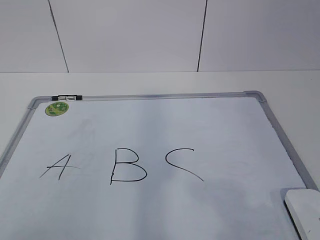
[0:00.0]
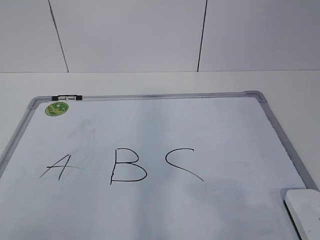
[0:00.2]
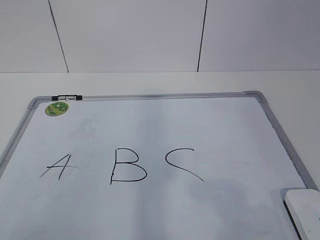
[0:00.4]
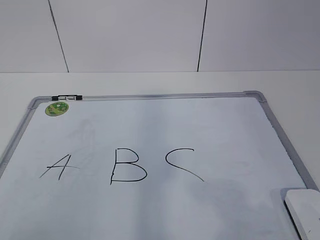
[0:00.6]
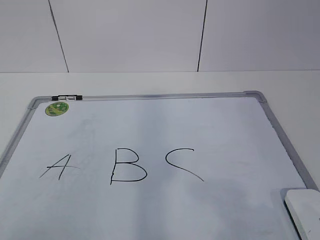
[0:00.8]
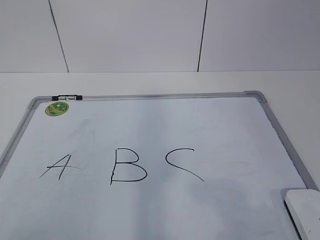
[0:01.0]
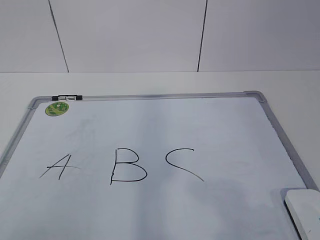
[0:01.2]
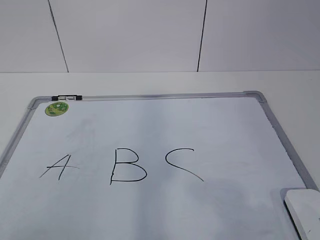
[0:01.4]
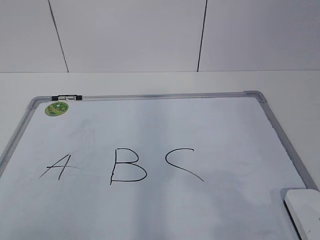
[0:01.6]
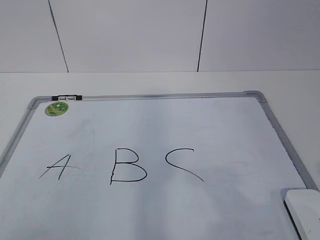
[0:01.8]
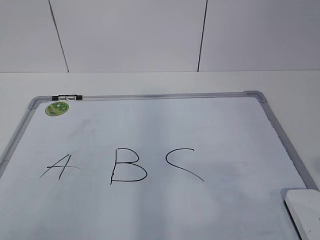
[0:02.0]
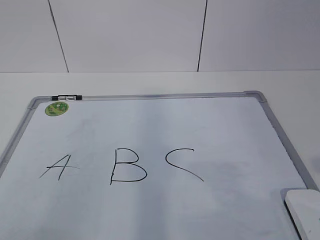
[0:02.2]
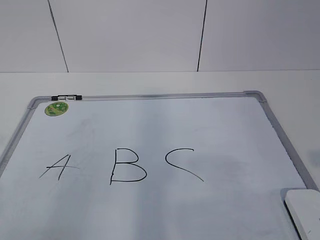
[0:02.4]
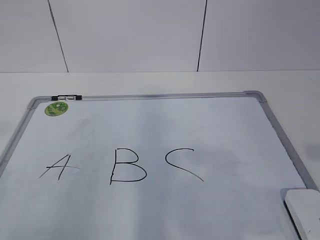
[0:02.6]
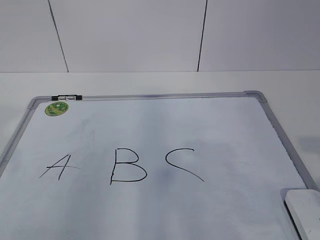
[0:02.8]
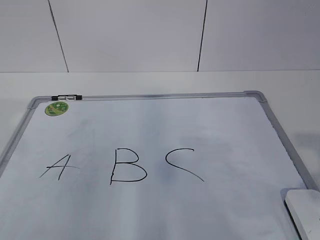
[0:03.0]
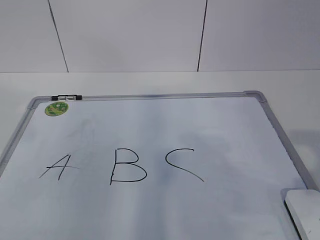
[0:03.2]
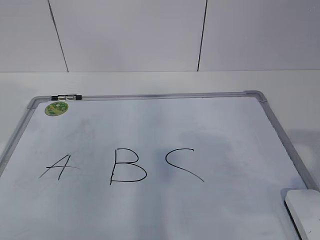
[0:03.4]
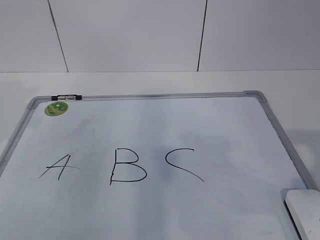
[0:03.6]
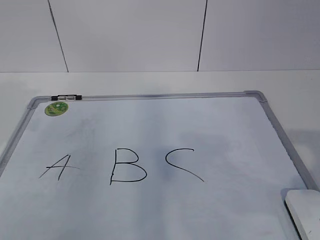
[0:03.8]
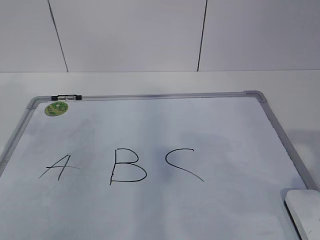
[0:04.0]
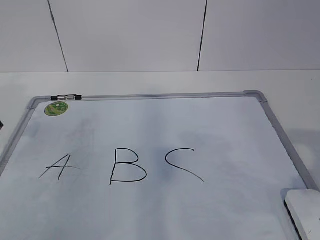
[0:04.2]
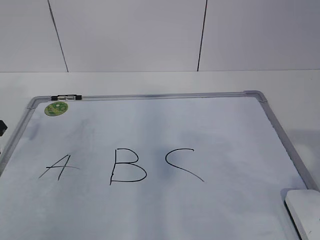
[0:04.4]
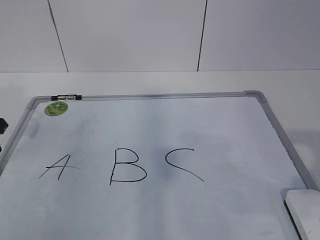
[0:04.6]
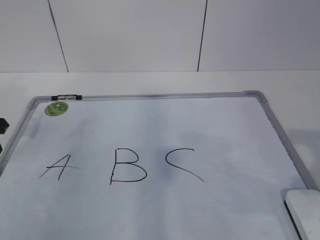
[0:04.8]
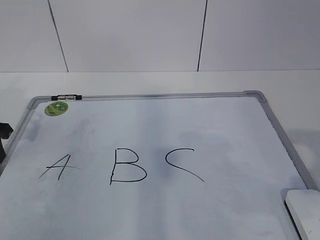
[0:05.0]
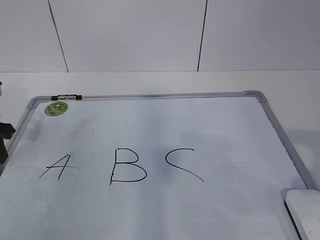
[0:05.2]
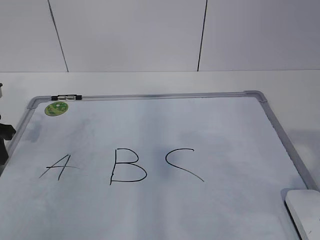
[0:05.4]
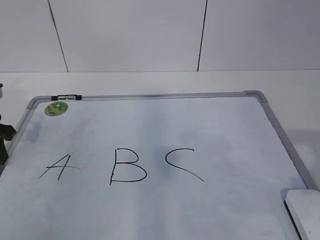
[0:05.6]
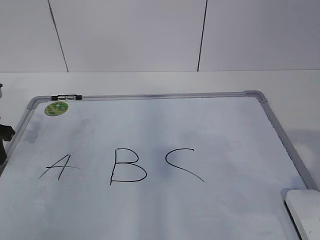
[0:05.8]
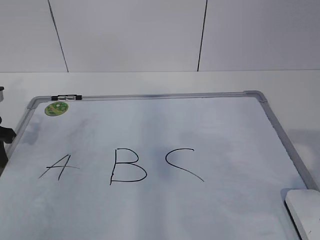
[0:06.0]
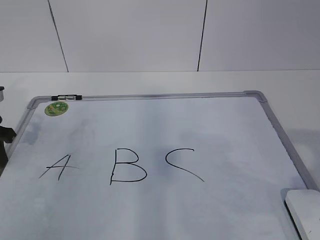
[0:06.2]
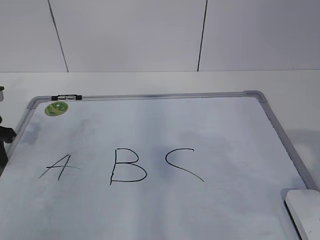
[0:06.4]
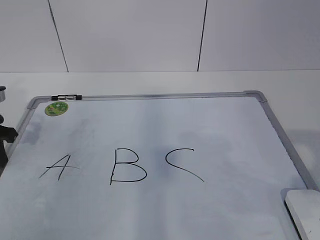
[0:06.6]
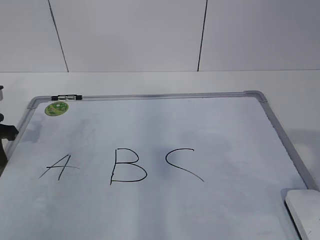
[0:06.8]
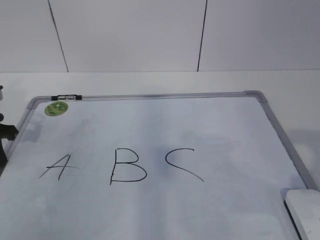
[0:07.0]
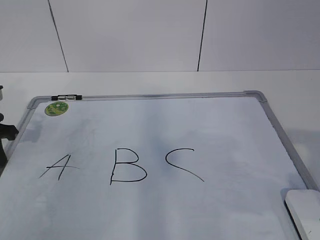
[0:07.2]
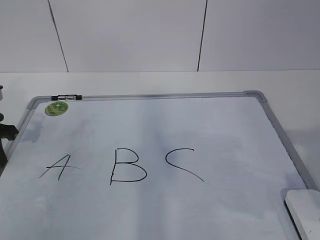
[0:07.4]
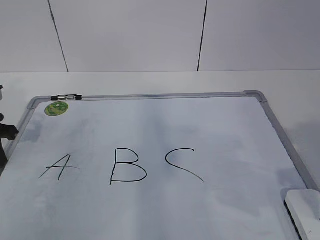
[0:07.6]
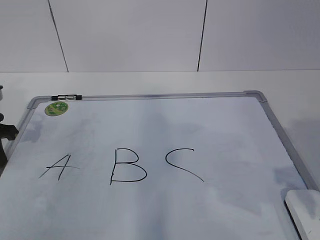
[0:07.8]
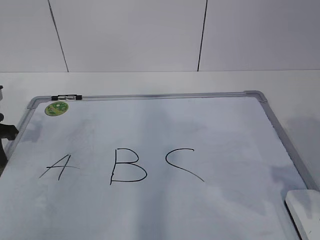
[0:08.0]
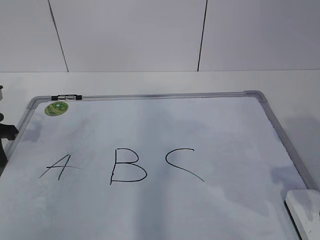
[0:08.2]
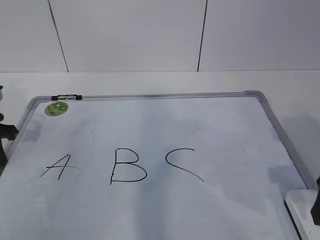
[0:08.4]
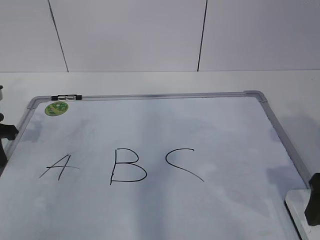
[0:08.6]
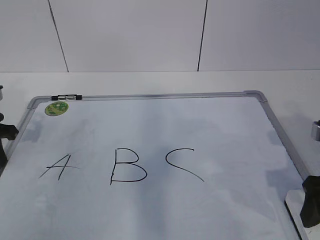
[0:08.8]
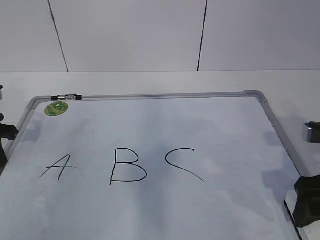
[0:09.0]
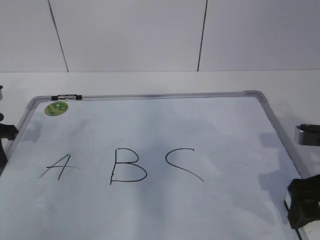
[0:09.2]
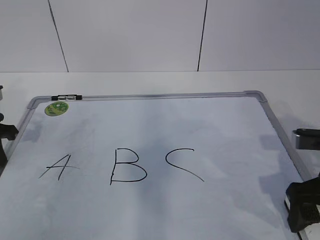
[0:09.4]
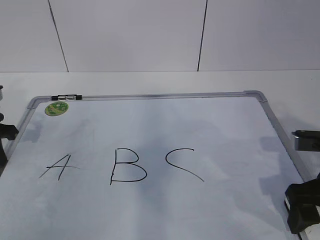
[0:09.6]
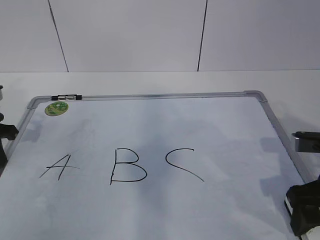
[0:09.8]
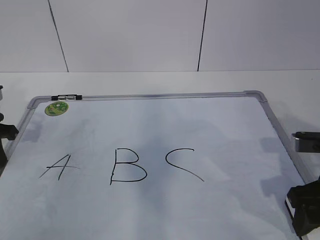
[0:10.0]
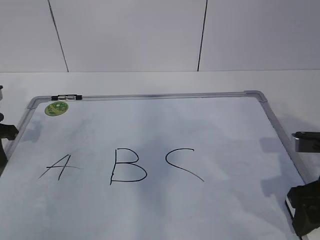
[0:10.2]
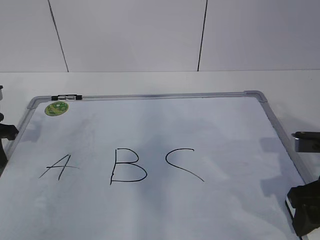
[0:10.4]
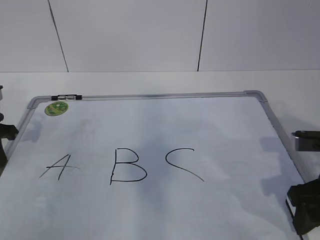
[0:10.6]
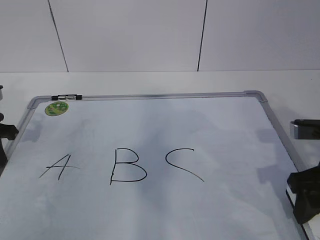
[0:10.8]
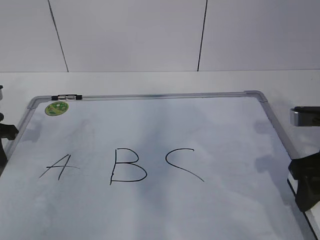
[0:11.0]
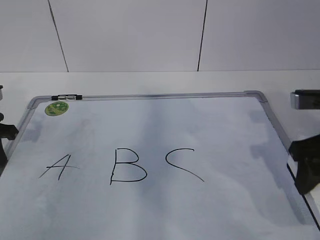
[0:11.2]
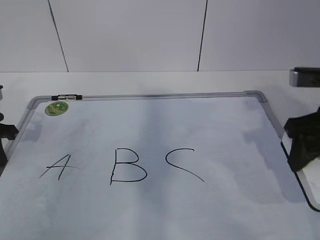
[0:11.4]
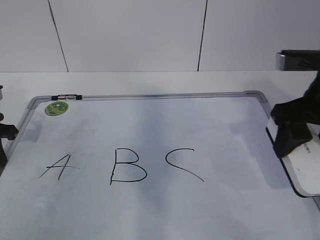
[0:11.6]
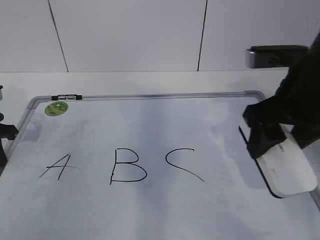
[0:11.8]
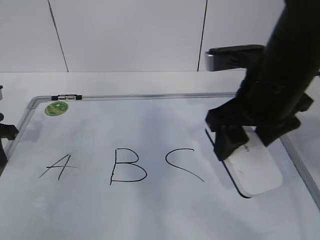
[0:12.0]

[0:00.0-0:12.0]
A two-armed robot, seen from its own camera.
Task of the whole recording: pick up the eraser on the blackboard and erase the letter "B".
0:03.0 to 0:04.4: The left gripper is displaced forward and downward by roughly 20 cm.
0:07.6 to 0:09.0: The right gripper heads downward and forward, covering about 10 cm, and opens.
0:09.0 to 0:10.4: The right gripper closes up.
0:10.4 to 0:12.0: The right gripper travels to the left, upward and forward by about 15 cm.

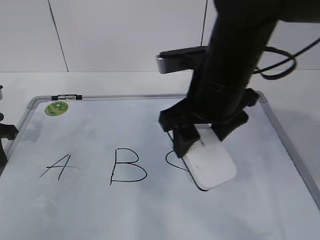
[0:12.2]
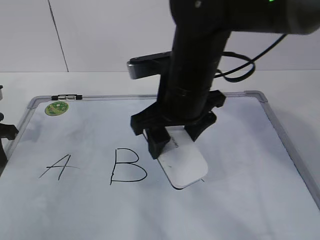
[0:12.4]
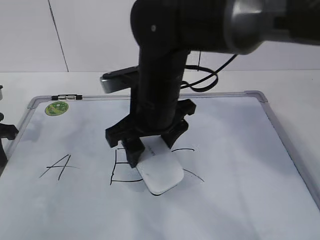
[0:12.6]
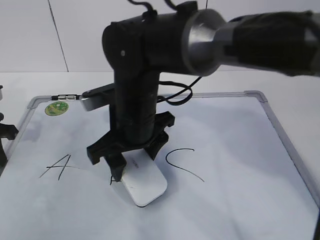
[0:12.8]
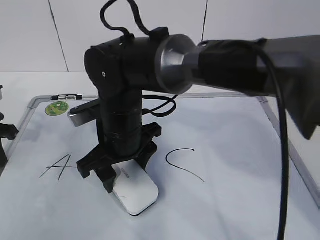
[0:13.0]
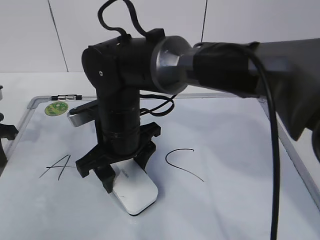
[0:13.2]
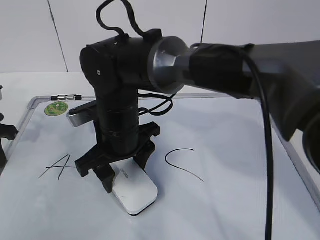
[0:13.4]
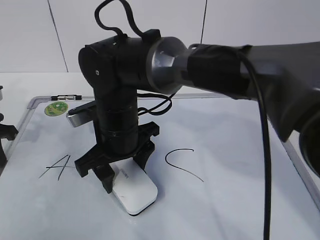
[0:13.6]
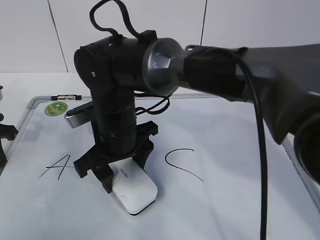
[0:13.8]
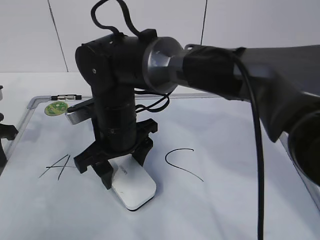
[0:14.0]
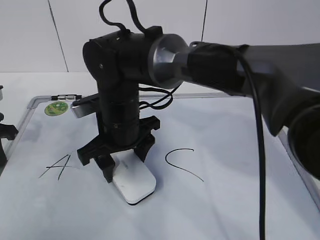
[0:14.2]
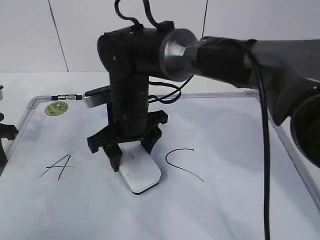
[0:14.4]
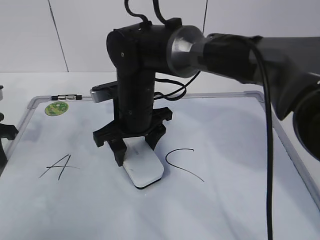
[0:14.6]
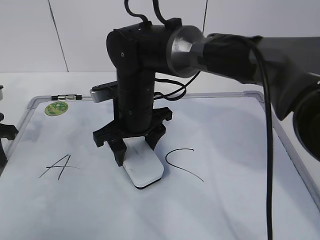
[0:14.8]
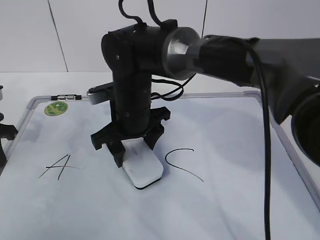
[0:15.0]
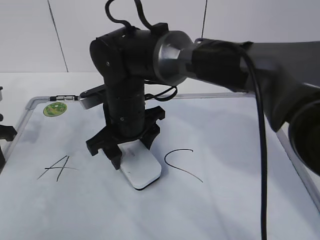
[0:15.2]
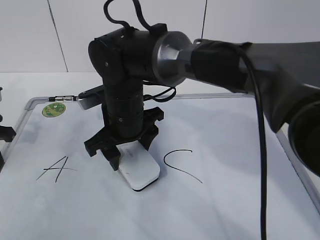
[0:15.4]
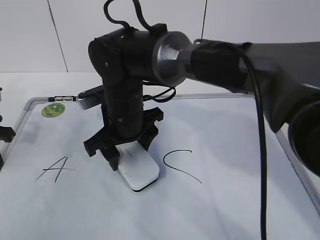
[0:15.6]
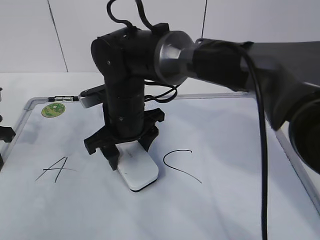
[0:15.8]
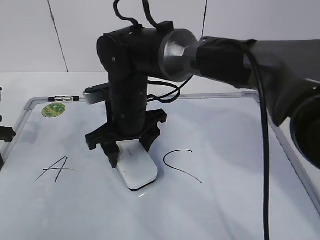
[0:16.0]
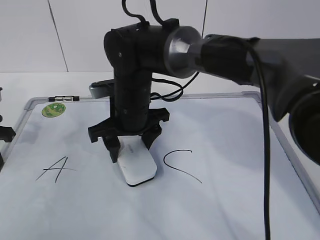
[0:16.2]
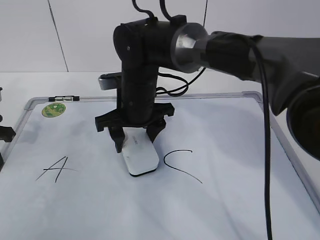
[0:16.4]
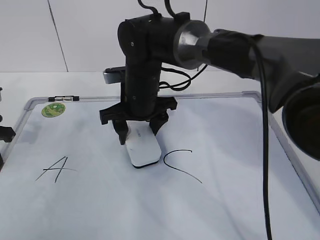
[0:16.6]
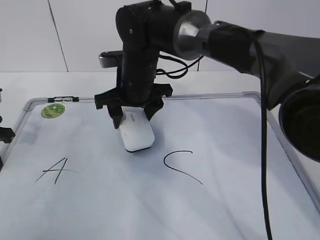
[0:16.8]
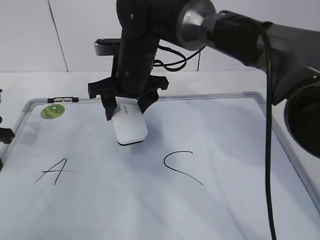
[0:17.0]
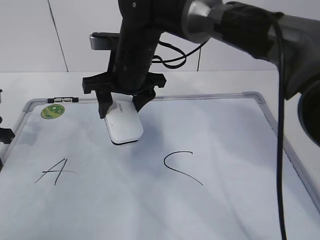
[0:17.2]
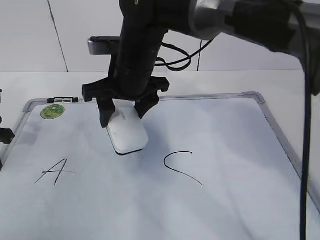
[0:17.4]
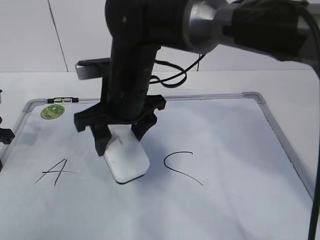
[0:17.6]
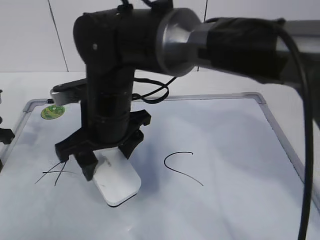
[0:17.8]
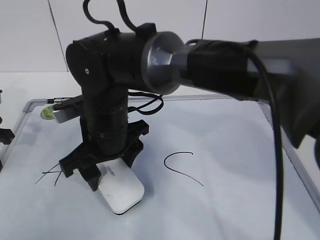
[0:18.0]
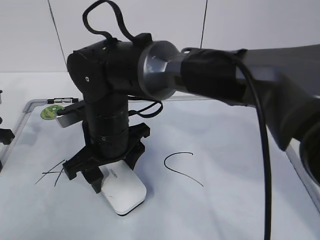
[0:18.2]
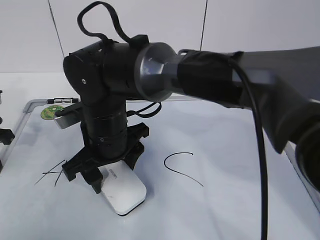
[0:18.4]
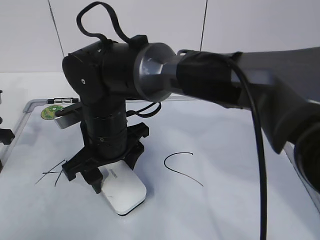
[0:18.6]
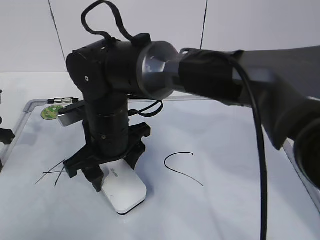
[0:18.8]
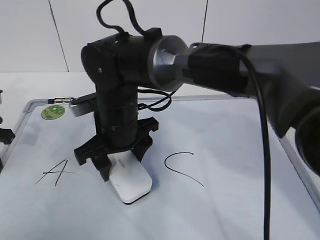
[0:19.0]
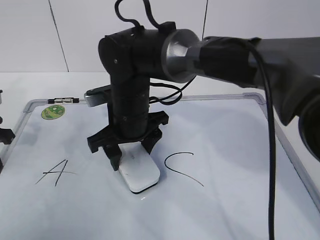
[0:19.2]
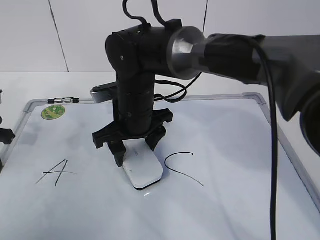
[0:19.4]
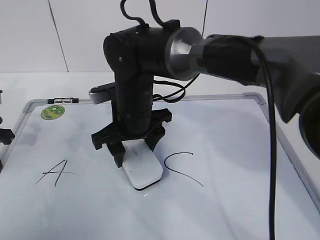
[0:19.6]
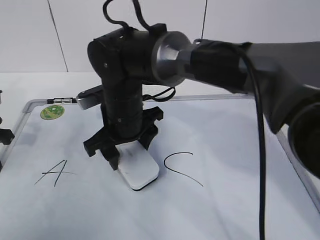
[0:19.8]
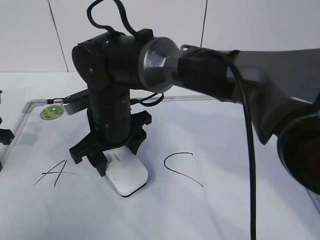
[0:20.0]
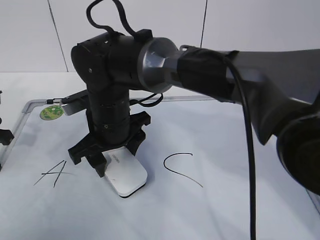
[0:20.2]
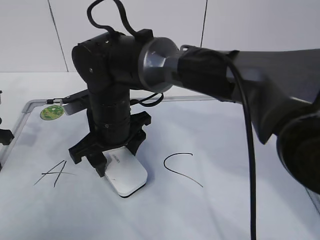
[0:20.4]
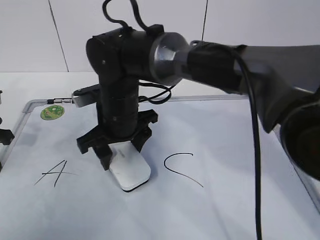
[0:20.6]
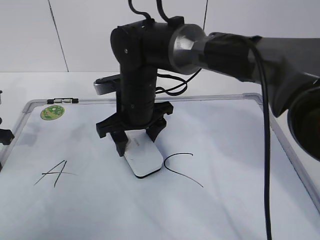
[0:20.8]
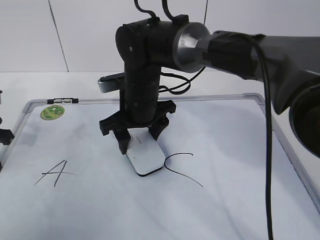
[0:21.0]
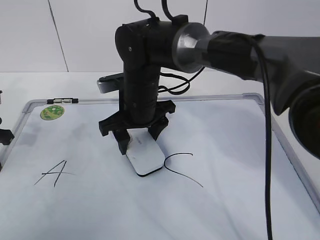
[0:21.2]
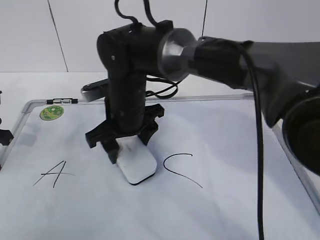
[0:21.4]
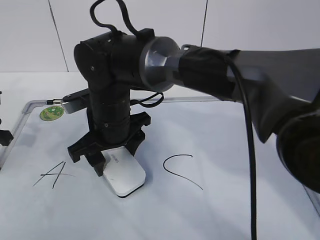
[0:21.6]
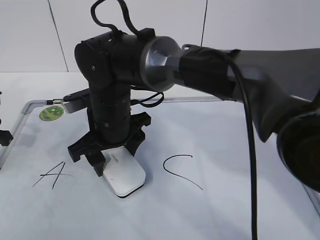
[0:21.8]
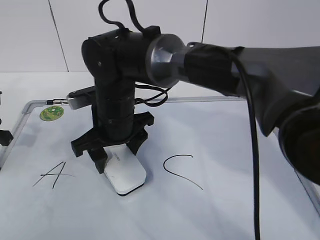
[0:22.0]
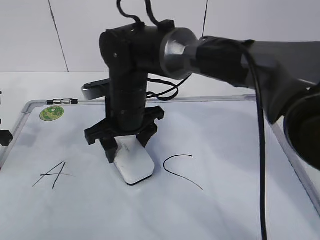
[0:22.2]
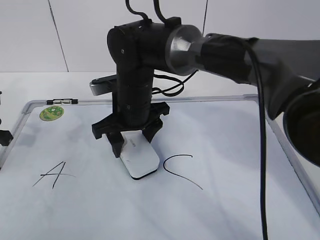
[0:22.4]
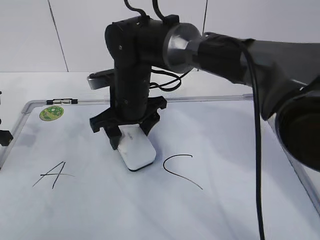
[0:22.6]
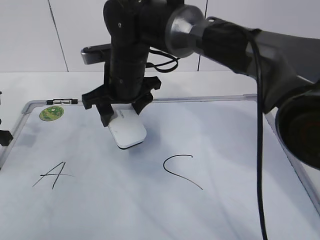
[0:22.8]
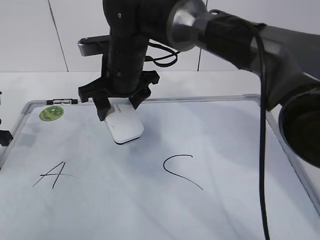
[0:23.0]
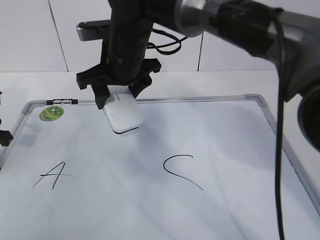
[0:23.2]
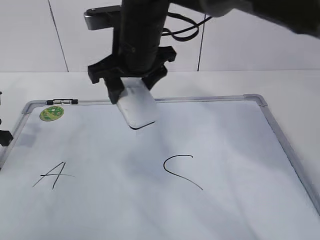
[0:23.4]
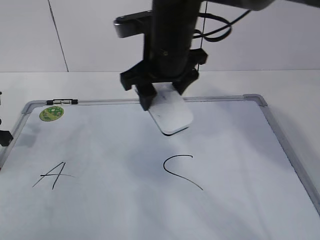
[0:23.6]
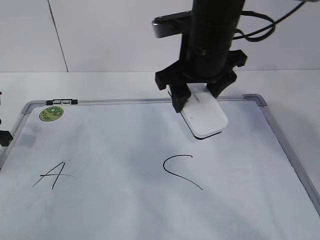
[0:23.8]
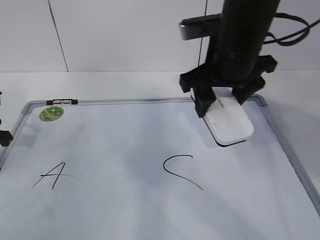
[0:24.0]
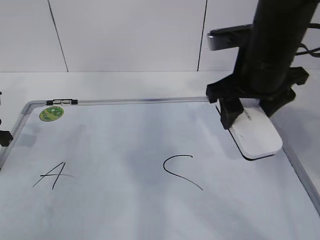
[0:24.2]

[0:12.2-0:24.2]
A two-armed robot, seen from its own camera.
Task of the whole recording: pick up the eraser on the blackboard and erase the letter "B".
Step, 0:12.2 to 0:18.8: Erase the letter B with your right hand.
Step, 0:19.0 to 0:23.8: Put down the eraser with your right hand.
0:12.2 to 0:13.8: The right gripper is displaced to the left and downward by approximately 15 cm.
0:13.8 to 0:15.2: The grippers make only small movements.
0:15.2 to 0:16.6: The right gripper moves some 5 cm.
0:16.6 to 0:18.2: The right gripper heads backward and to the left, covering about 10 cm.
0:22.6 to 0:24.2: The right gripper heads to the right and upward, covering some 20 cm.
